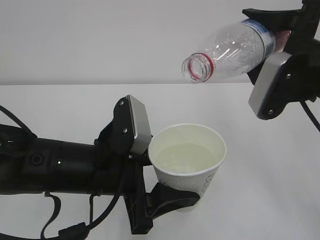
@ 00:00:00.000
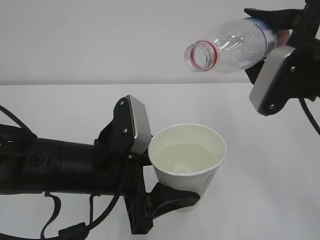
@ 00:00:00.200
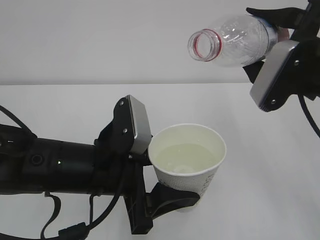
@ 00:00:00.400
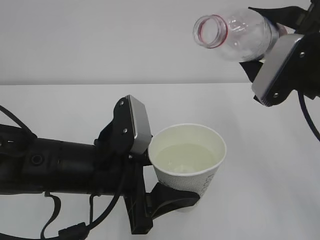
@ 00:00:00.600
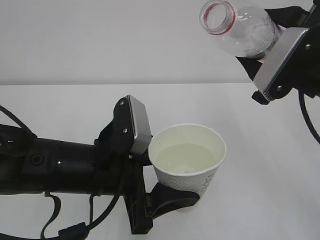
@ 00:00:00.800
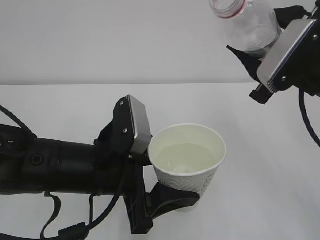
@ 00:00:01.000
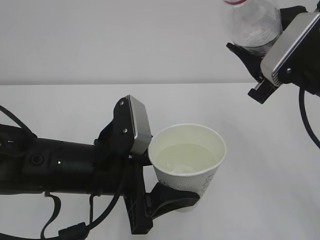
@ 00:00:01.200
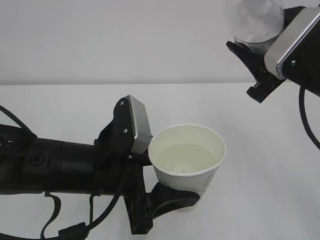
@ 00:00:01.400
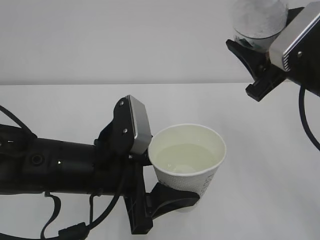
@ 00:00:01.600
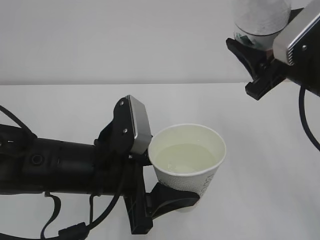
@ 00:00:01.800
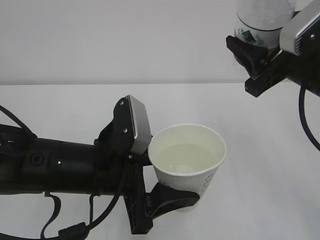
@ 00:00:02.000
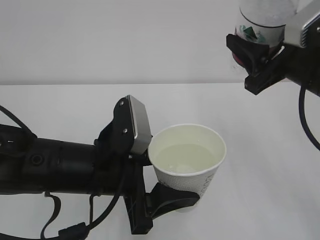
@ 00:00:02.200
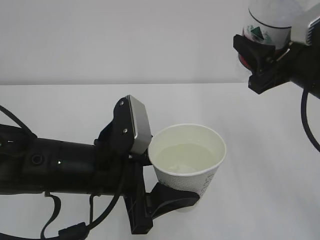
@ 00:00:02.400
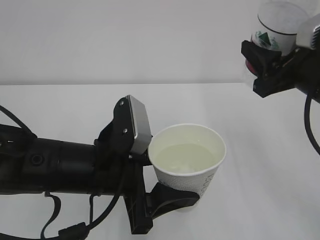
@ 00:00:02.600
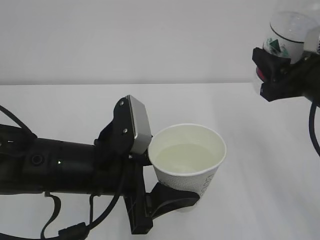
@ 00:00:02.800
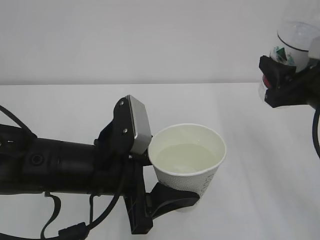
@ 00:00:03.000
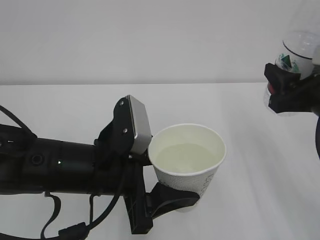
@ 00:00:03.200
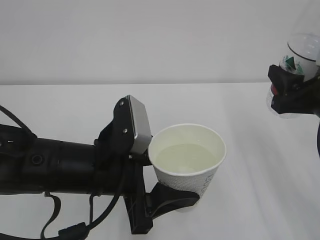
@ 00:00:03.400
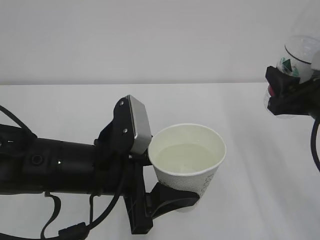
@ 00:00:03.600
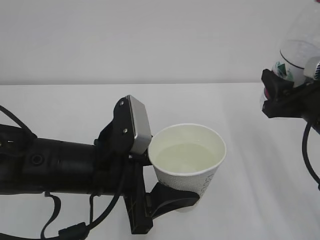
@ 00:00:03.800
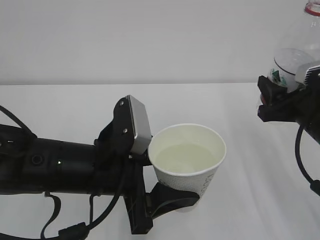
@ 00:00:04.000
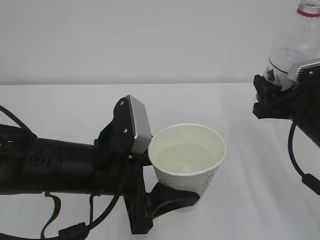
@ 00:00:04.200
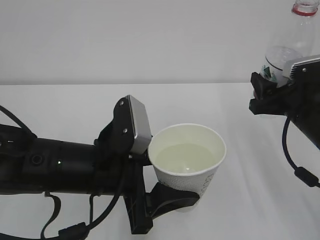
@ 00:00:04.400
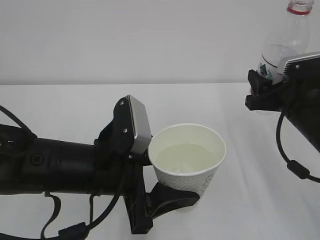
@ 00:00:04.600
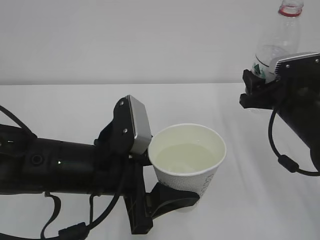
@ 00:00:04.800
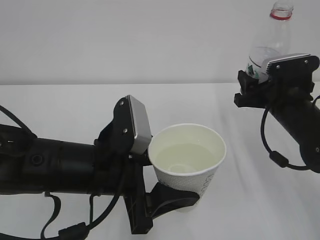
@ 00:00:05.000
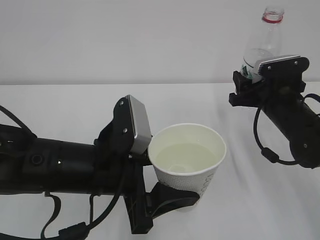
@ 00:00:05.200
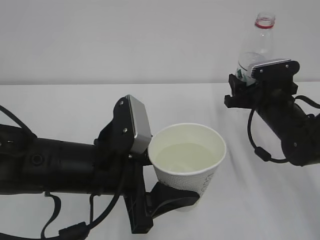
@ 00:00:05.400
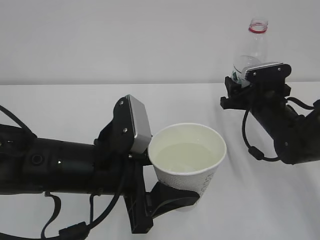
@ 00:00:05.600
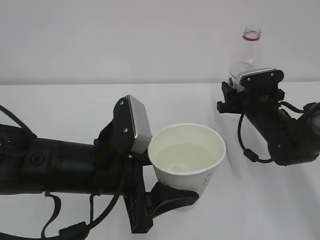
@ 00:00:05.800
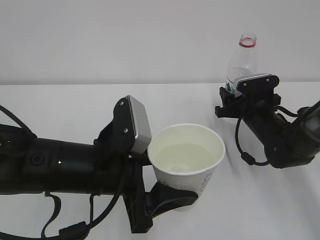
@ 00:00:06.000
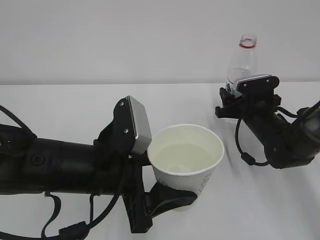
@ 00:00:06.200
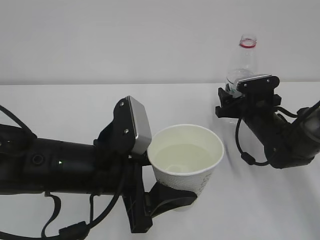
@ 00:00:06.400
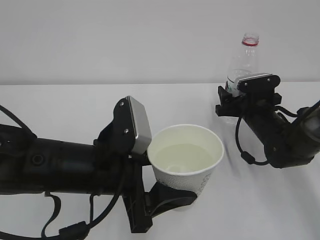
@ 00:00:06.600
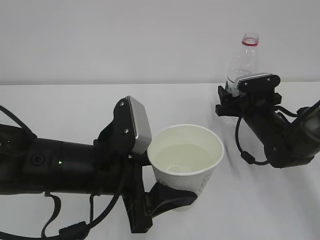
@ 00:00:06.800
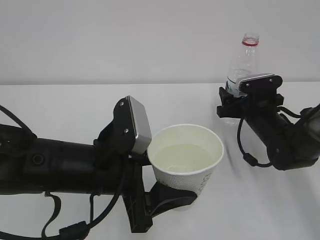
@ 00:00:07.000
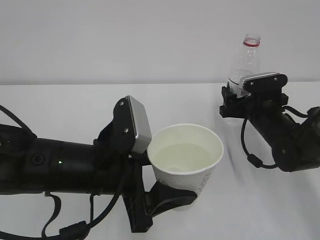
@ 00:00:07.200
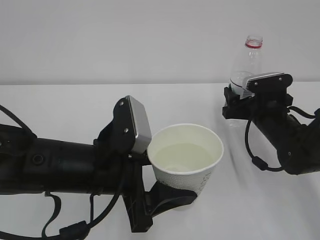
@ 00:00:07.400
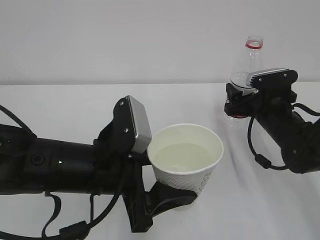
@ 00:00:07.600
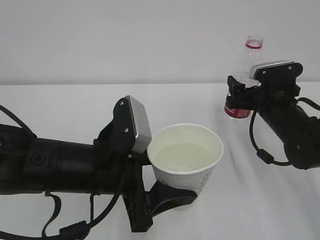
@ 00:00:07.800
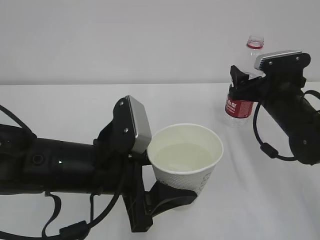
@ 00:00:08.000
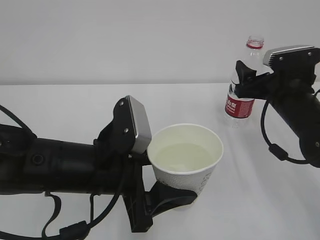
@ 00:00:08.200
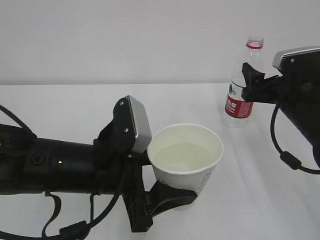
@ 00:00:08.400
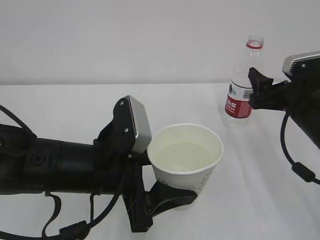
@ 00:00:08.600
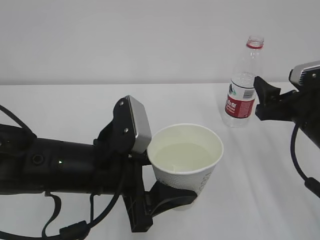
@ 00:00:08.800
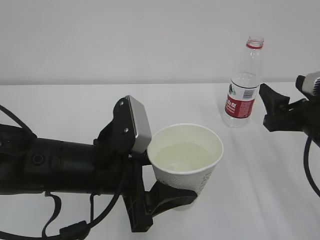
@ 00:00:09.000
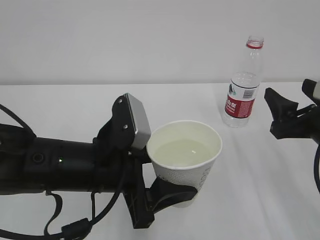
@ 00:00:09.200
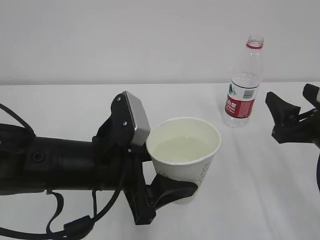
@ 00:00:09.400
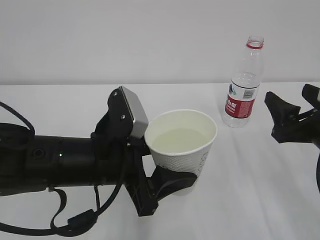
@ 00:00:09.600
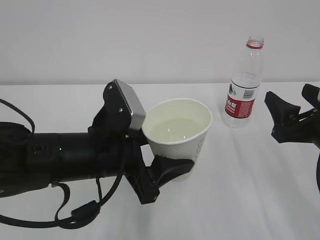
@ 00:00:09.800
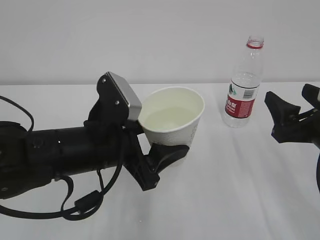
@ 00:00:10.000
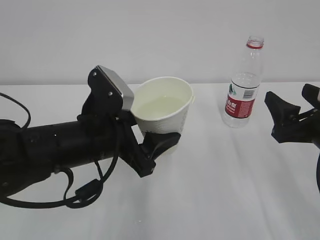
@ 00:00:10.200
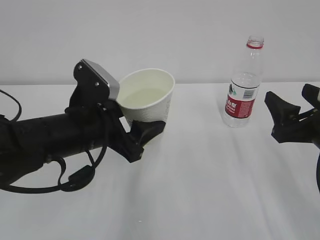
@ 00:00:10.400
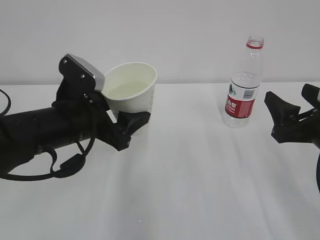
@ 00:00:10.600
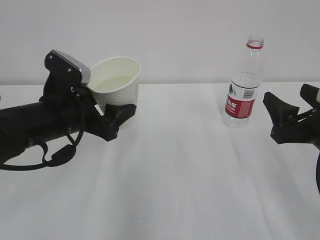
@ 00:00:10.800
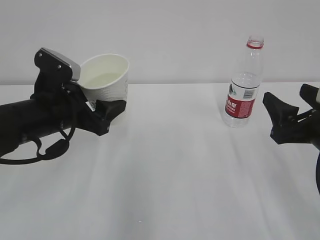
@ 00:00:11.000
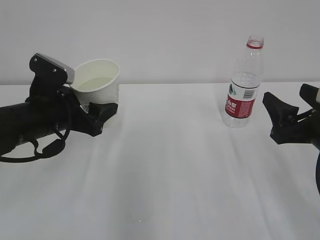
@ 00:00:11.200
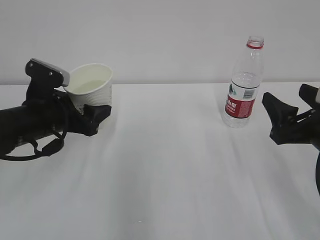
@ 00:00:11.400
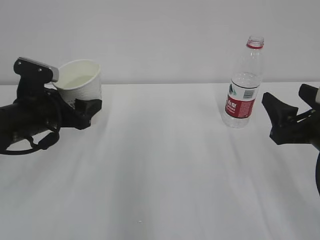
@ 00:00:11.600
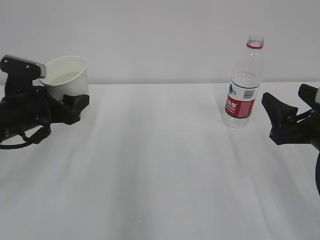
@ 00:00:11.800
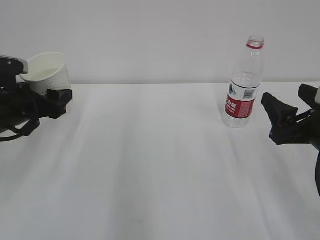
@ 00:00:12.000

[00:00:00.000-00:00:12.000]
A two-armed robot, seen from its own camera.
00:00:01.600 to 00:00:03.000: The right gripper moves some 5 cm.
00:00:03.000 to 00:00:04.400: The right gripper heads downward, covering roughly 5 cm.
00:00:04.400 to 00:00:06.000: The right gripper moves forward and downward, some 15 cm.
00:00:06.000 to 00:00:07.600: The right gripper opens.
00:00:07.600 to 00:00:09.000: The right gripper goes some 15 cm backward and upward.
00:00:09.000 to 00:00:10.400: The left gripper heads forward, covering about 5 cm.
00:00:10.400 to 00:00:12.000: The left gripper is displaced to the left and forward by some 15 cm.

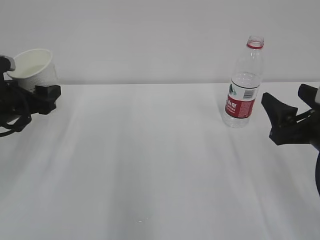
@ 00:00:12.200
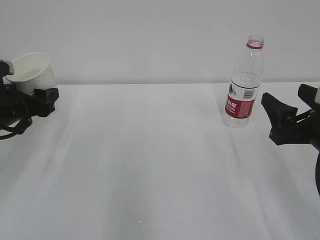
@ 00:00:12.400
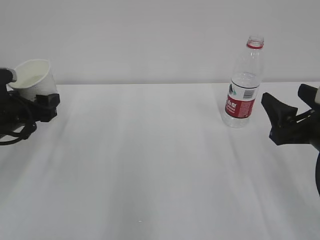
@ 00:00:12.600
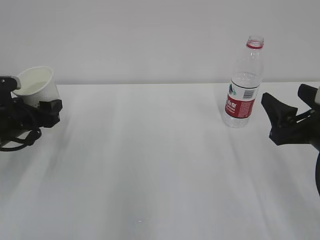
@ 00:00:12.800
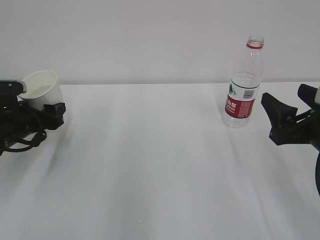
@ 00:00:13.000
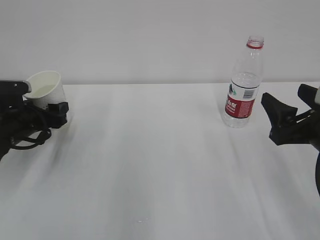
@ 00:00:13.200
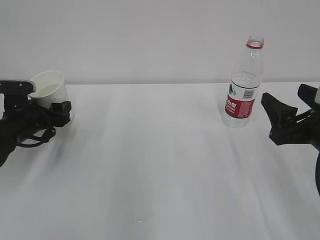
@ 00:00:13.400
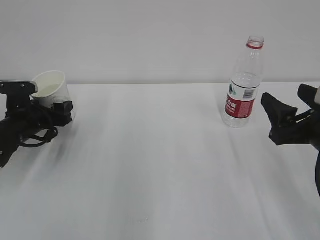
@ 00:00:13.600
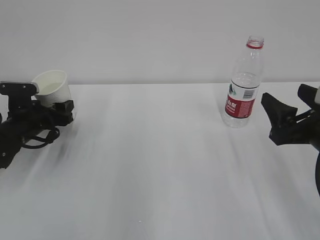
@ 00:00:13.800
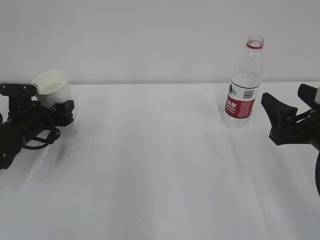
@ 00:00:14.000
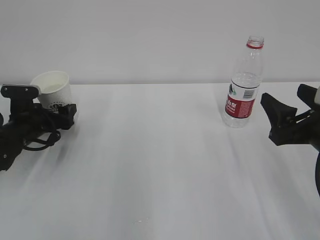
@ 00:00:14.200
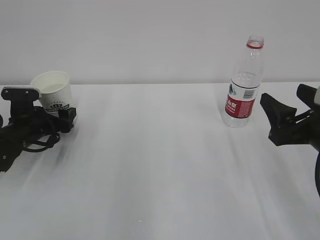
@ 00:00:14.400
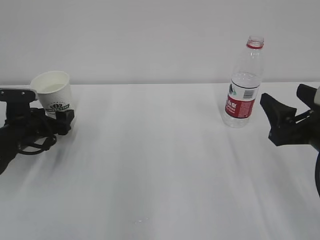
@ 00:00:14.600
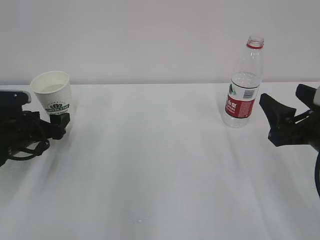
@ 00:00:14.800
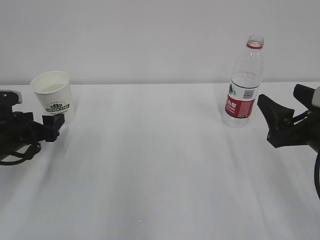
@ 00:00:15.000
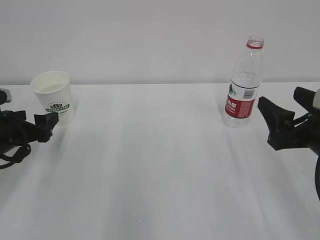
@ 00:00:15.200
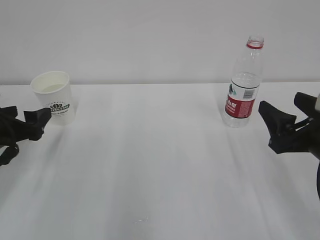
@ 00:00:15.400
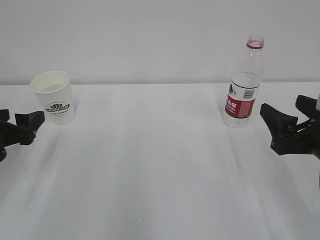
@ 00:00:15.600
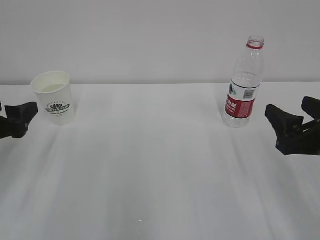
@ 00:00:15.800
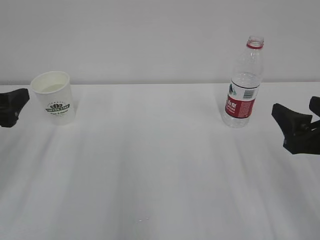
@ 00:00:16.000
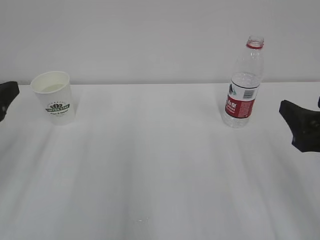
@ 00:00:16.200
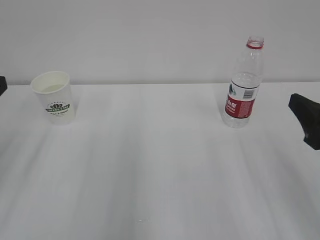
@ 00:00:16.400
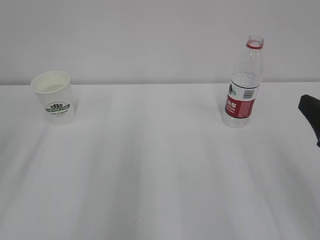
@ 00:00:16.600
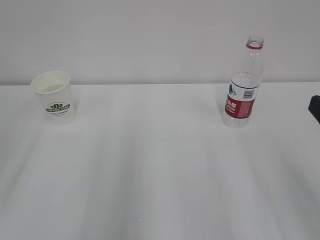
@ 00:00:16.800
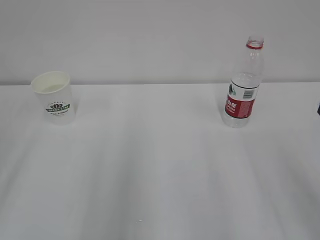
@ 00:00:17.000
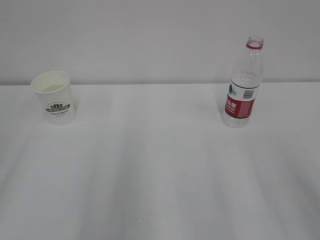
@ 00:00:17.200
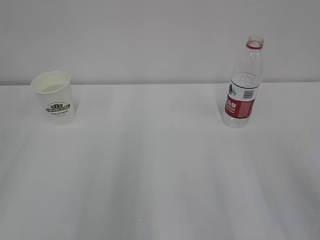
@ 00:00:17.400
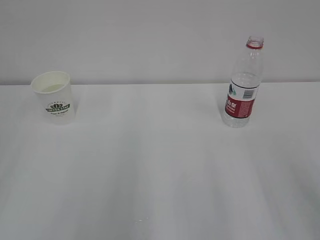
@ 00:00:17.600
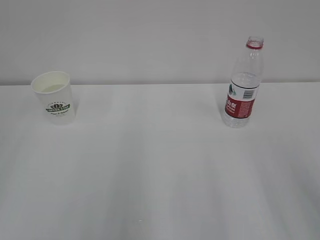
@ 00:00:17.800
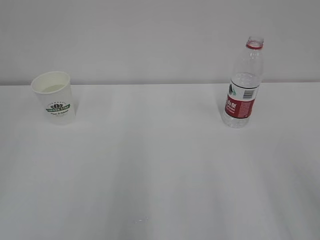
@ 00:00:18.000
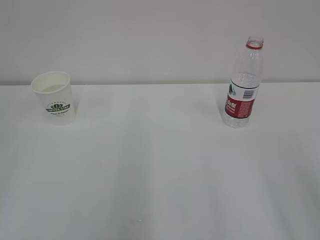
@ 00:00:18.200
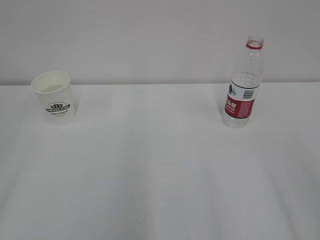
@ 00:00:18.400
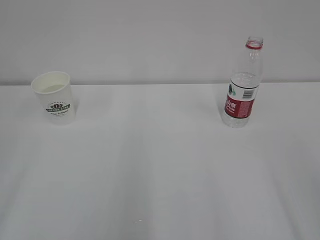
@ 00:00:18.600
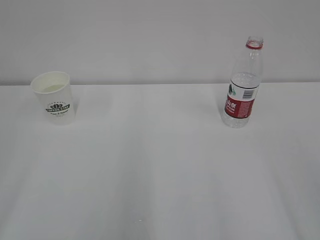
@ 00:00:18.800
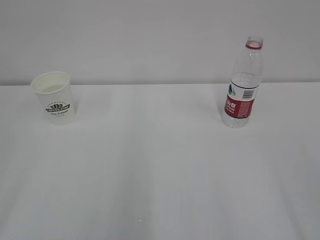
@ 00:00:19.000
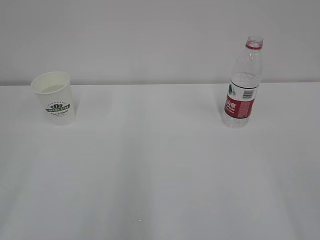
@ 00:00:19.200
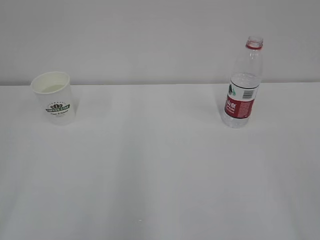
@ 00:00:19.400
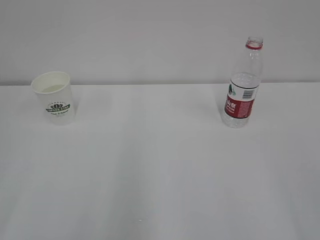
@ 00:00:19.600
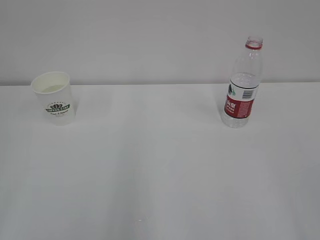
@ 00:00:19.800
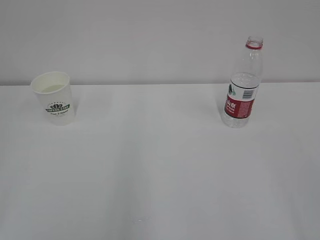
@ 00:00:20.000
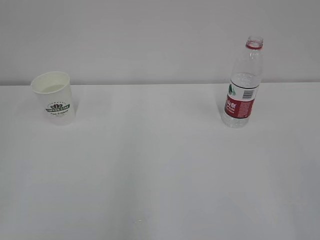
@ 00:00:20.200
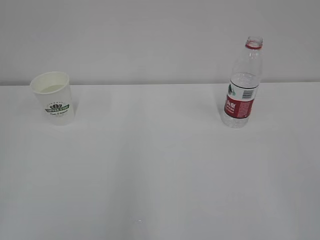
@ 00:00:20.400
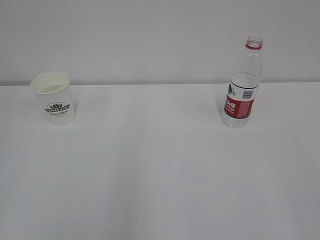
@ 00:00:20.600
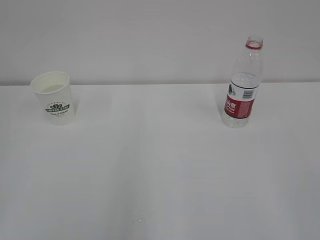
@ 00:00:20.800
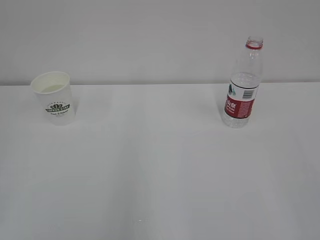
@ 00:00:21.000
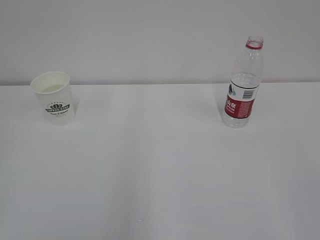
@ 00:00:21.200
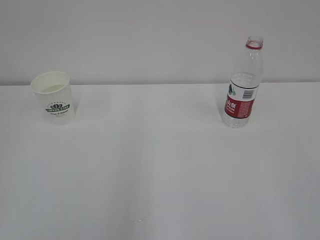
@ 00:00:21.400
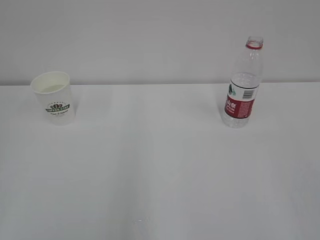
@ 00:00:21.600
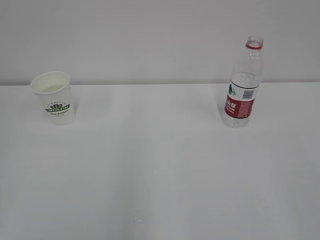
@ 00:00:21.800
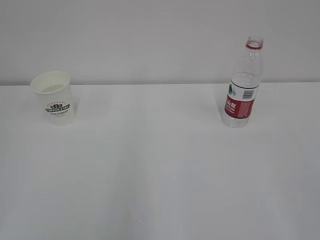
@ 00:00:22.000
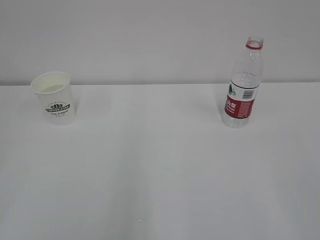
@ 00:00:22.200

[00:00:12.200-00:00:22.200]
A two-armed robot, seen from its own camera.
00:00:12.200 to 00:00:13.600: The left gripper goes approximately 10 cm downward.
00:00:13.600 to 00:00:15.000: The left gripper heads backward, covering about 5 cm, and opens.
00:00:15.000 to 00:00:16.400: The right gripper moves approximately 5 cm; the left gripper moves upward and backward, roughly 20 cm.
00:00:16.400 to 00:00:18.000: The right gripper is displaced backward and upward by roughly 10 cm.
00:00:20.800 to 00:00:22.200: The two grippers keep their place.
